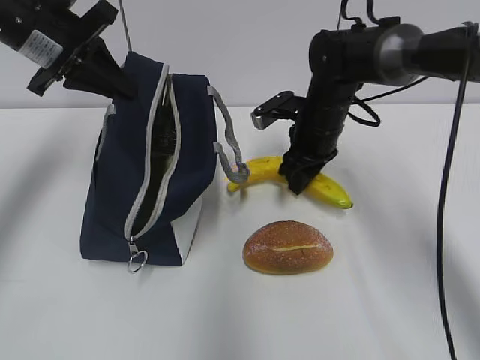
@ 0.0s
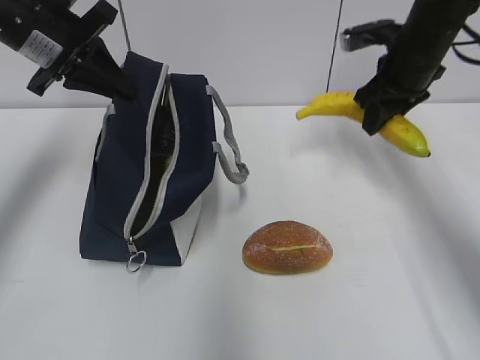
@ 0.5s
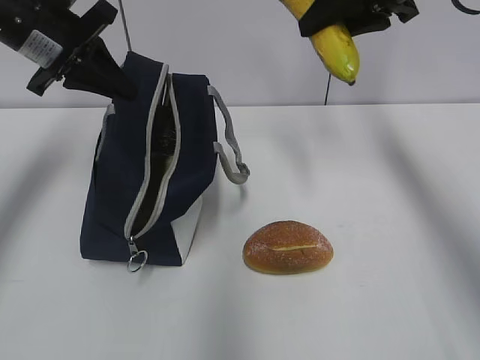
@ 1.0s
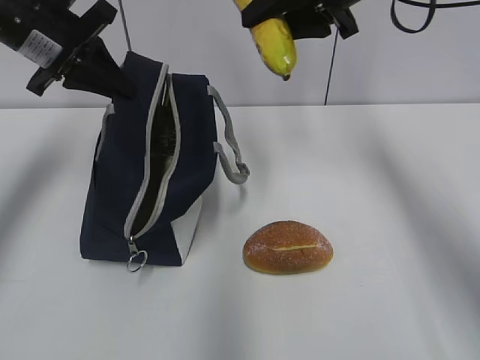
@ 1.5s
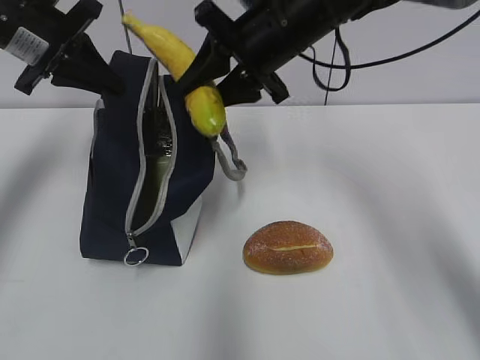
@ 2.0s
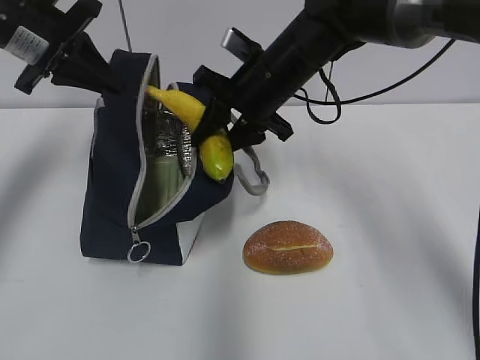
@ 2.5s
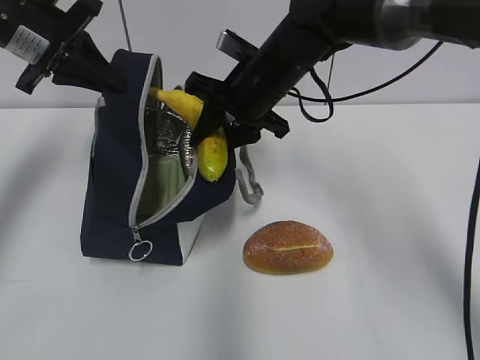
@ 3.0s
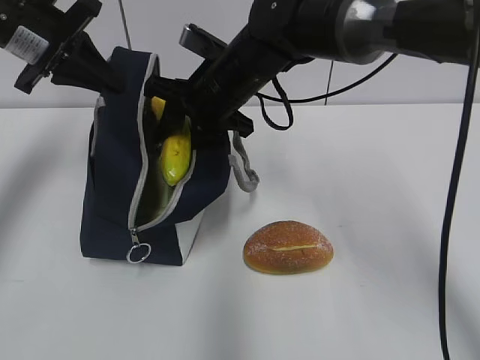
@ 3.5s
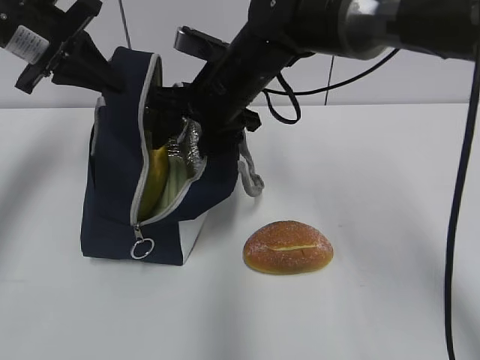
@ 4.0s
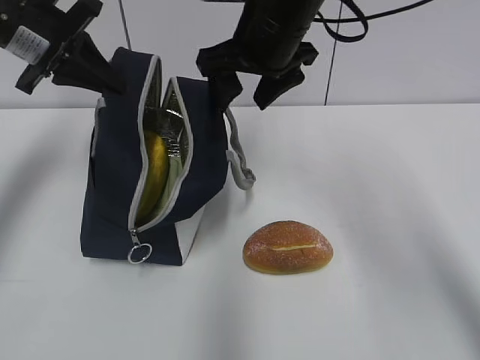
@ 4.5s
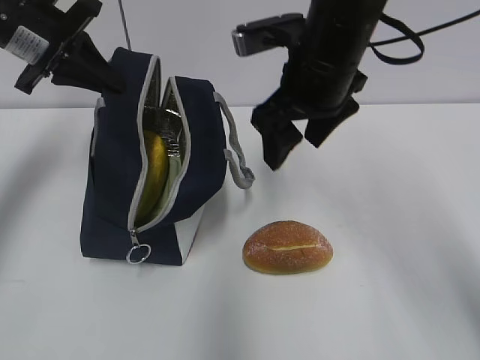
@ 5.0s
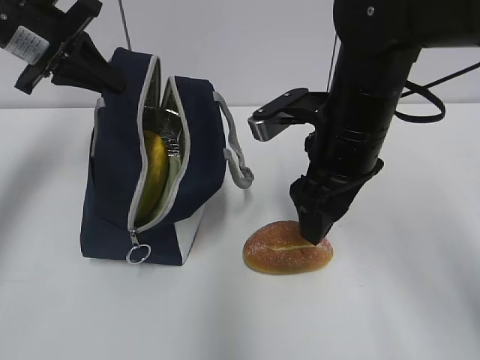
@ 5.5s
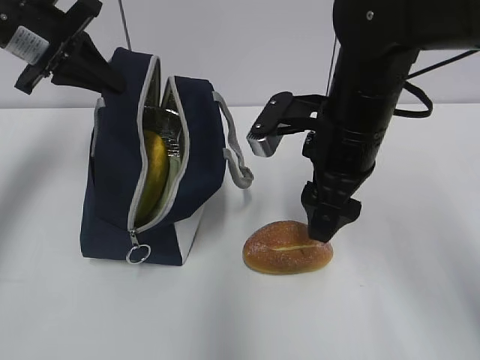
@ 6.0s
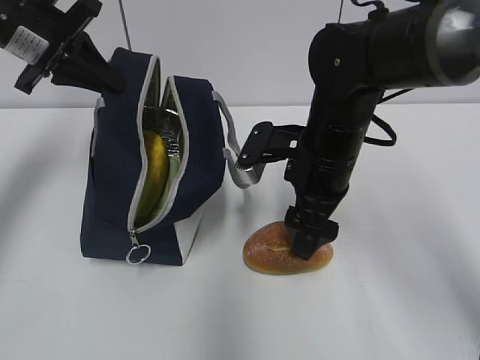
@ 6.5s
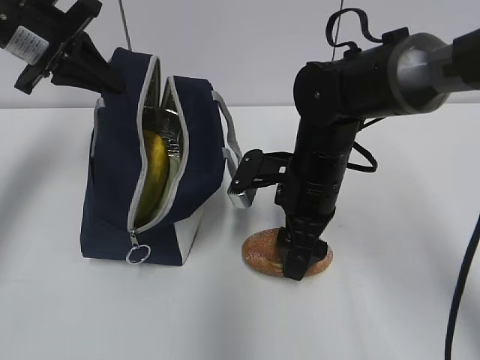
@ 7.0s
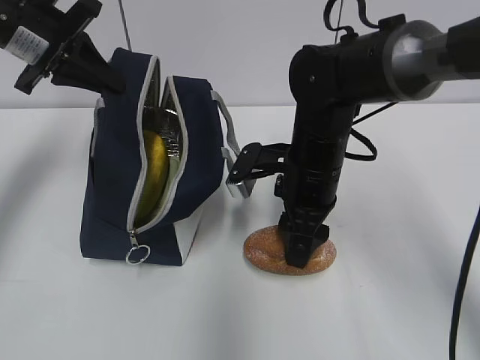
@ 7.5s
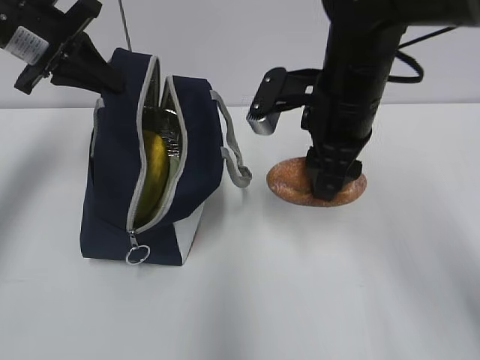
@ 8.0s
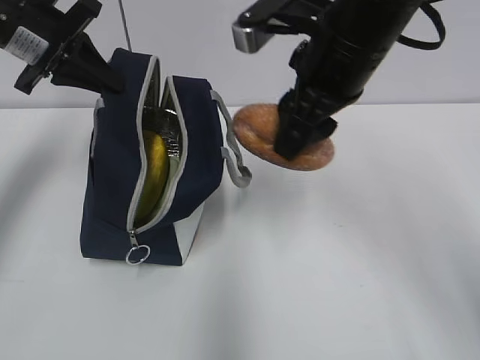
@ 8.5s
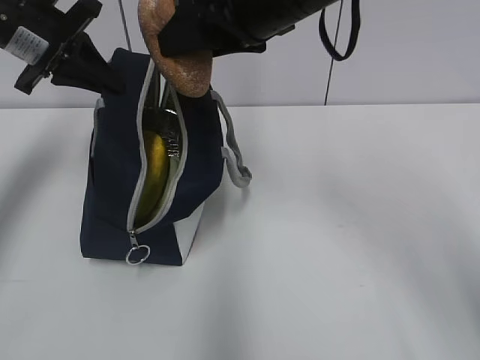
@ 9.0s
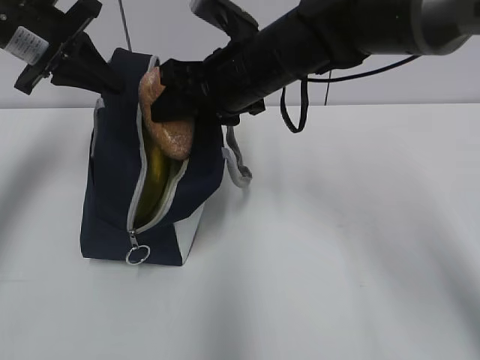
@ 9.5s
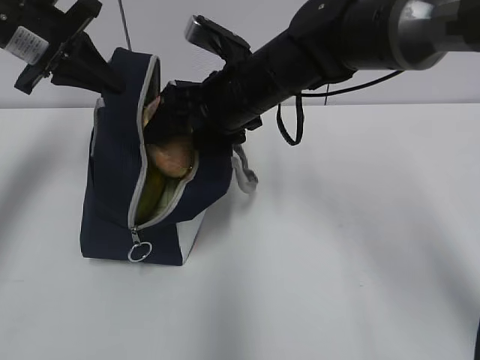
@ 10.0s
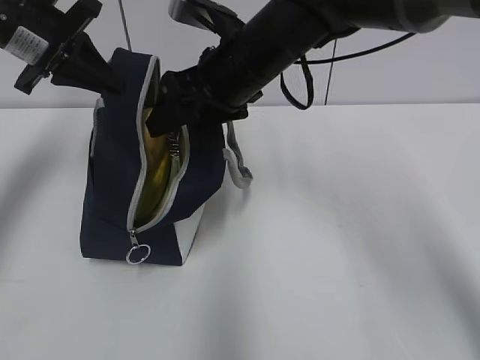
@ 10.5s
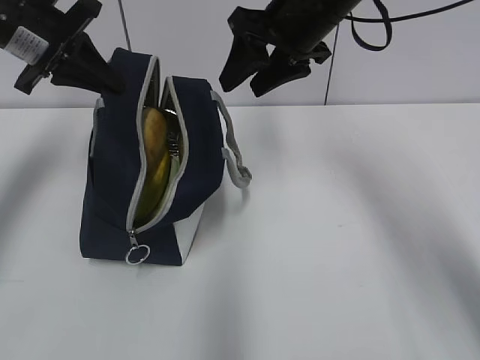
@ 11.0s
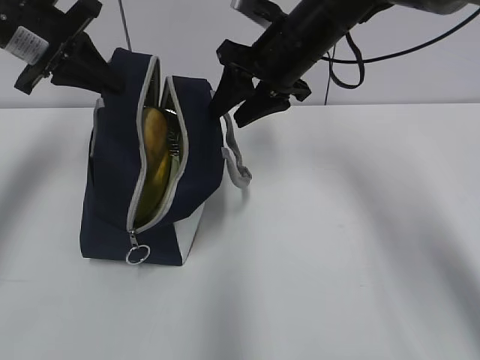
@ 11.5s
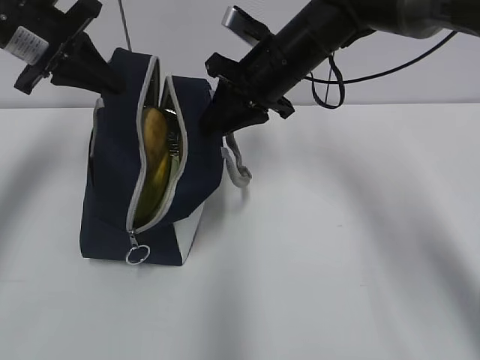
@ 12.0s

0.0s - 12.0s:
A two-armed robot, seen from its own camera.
Step, 0.0s - 3.5s: Place it into the bag with your right hand.
Step, 4.0s - 7.0s: Grab the bread with your right hand.
0.0s - 2.0s: The right gripper heads upward and to the left, covering about 15 cm.
2.0s - 4.0s: The right gripper goes approximately 10 cm downward and to the left, and opens up.
4.0s - 6.0s: The right gripper shifts roughly 15 cm to the right and backward.
6.0s - 8.0s: The right gripper moves roughly 10 cm downward and comes back.
8.0s - 10.0s: The right gripper goes approximately 10 cm to the left, moves roughly 10 cm upward and comes back, and opens its fingers.
10.0s - 12.0s: The right gripper moves roughly 10 cm upward and comes back, and closes its fingers.

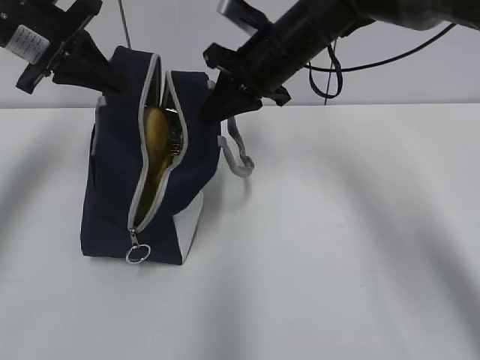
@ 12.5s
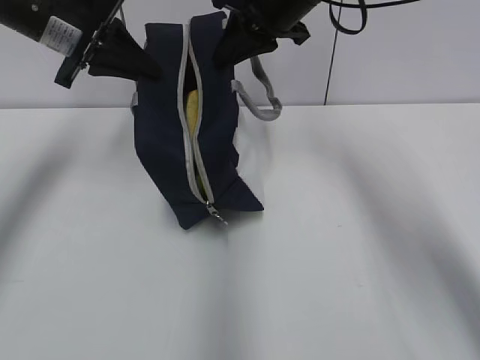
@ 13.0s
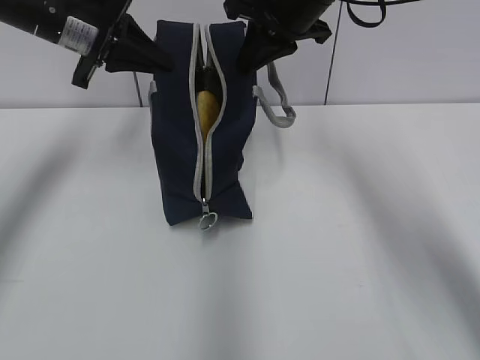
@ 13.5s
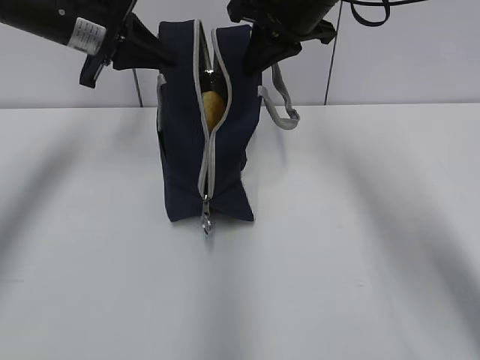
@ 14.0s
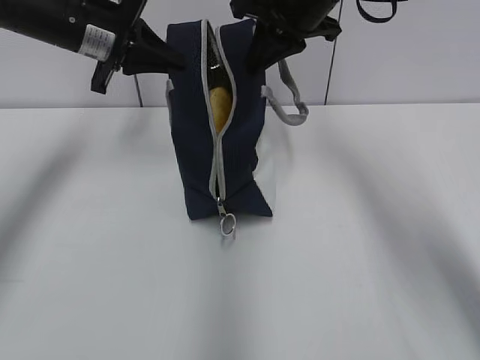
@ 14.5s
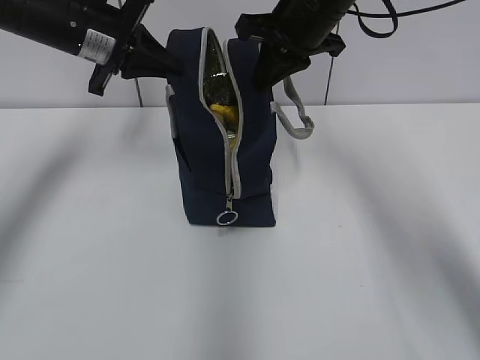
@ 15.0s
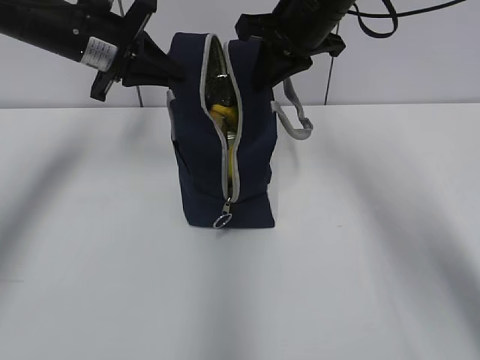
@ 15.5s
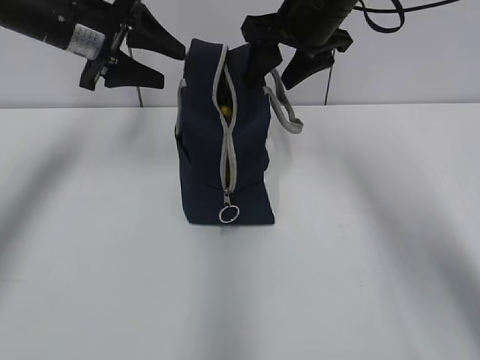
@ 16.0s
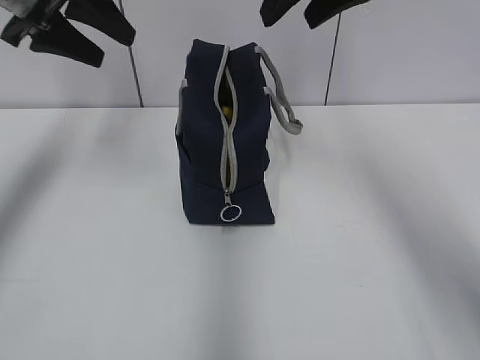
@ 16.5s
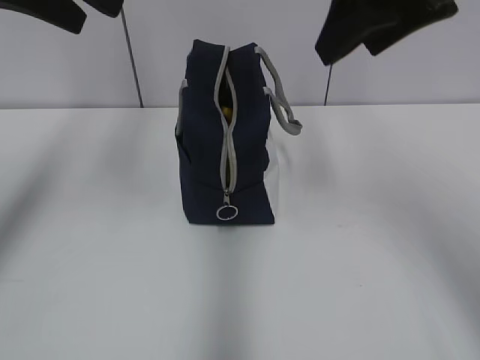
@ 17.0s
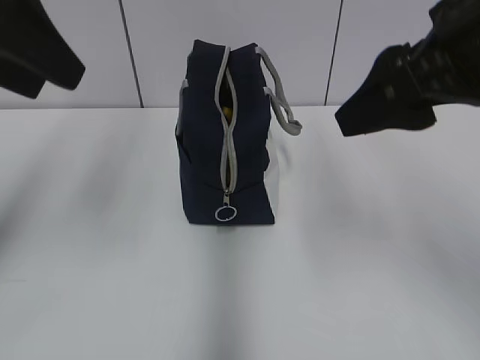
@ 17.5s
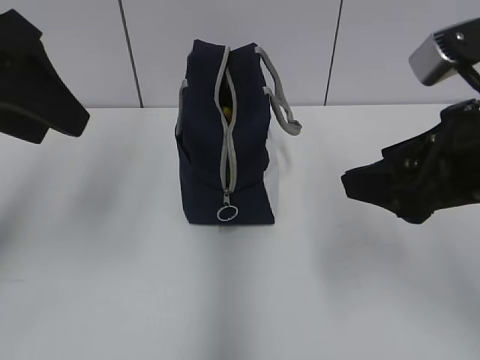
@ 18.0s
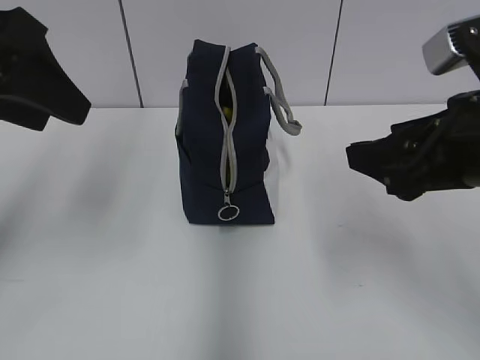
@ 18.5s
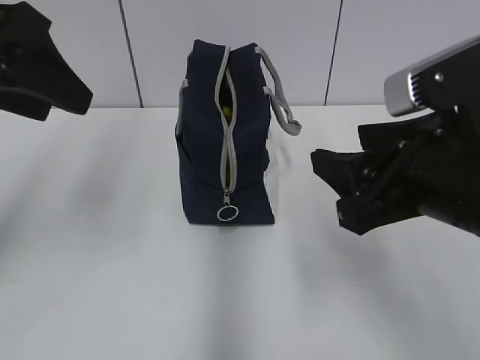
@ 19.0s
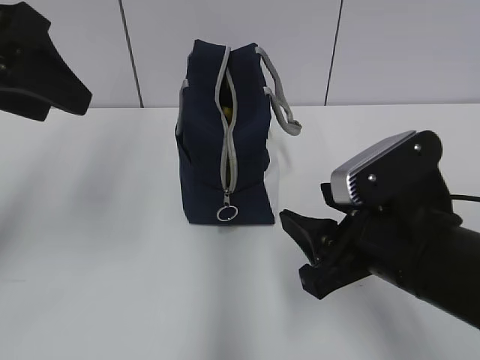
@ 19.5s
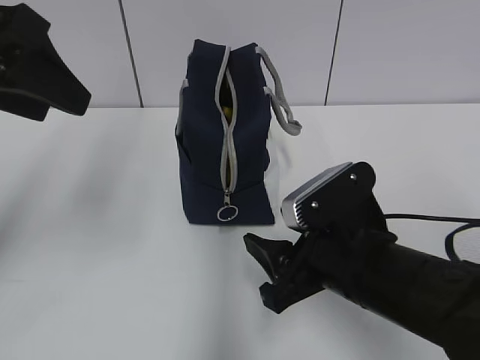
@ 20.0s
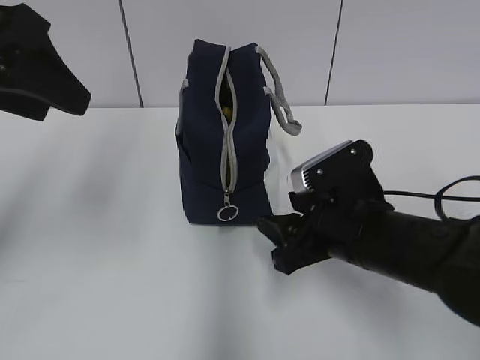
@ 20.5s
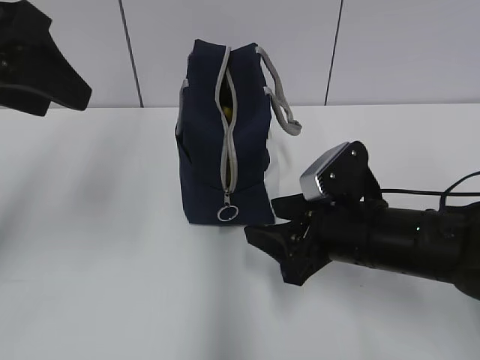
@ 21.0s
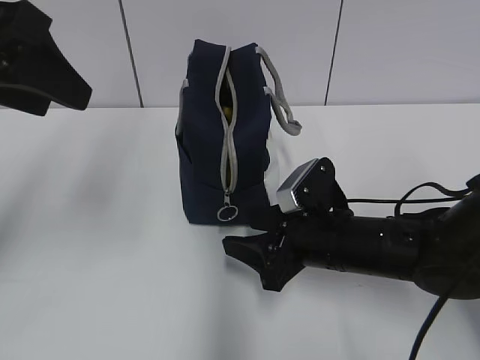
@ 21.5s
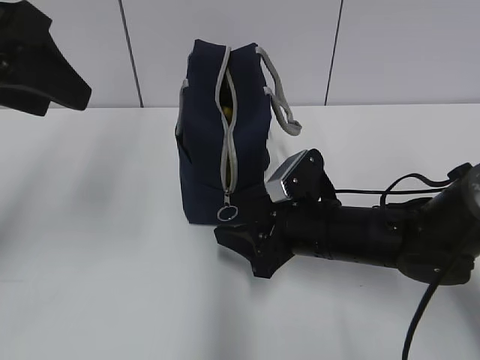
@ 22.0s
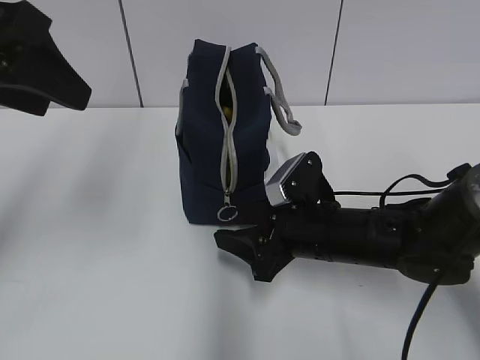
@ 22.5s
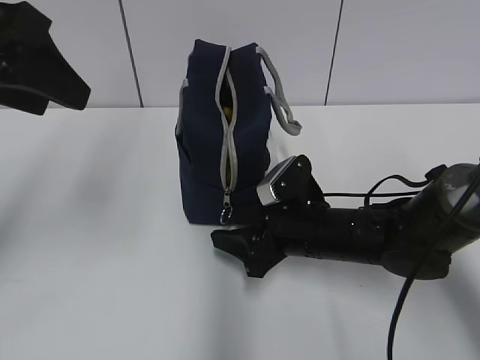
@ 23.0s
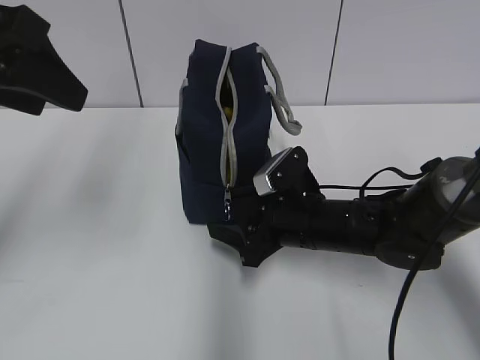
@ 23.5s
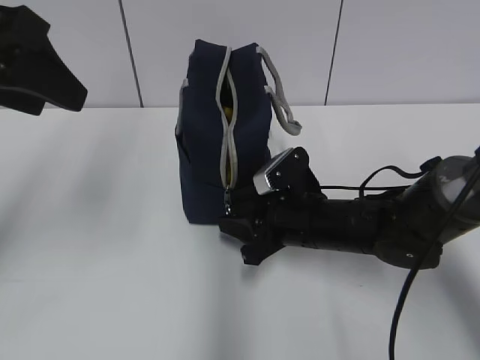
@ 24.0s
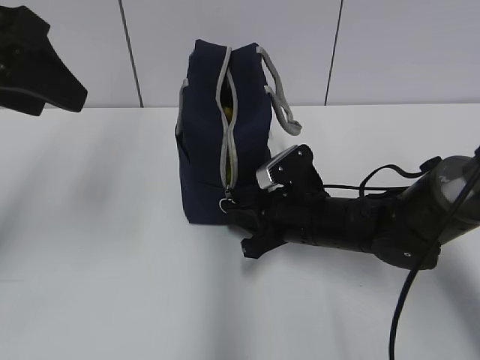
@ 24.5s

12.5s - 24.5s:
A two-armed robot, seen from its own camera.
Step, 12.5s - 15.5s: Move the lunch bag to the right.
12.5s - 14.5s: The right gripper goes about 5 cm upward, while the left gripper travels to the right by approximately 5 cm.
14.5s - 16.5s: Both grippers move upward, approximately 5 cm. The left gripper opens. Meanwhile the right gripper opens its fingers.
16.5s - 18.5s: The left gripper travels backward by about 15 cm; the right gripper is displaced backward and downward by some 20 cm.
18.5s - 20.5s: The right gripper travels downward and to the left by some 15 cm.
20.5s - 22.5s: The right gripper ends up about 5 cm from where it was.
22.5s - 24.5s: The right gripper closes up.

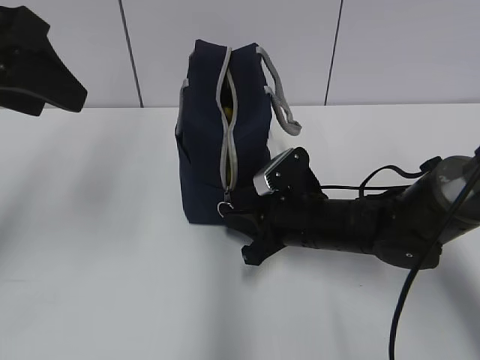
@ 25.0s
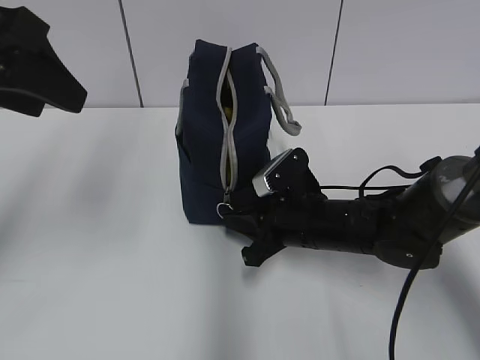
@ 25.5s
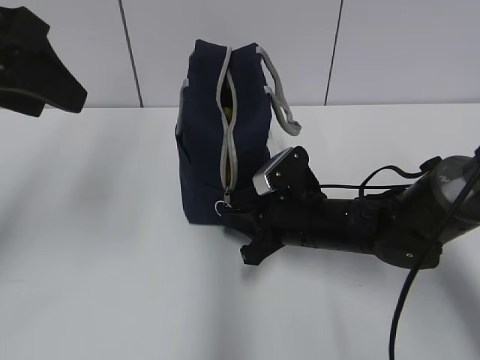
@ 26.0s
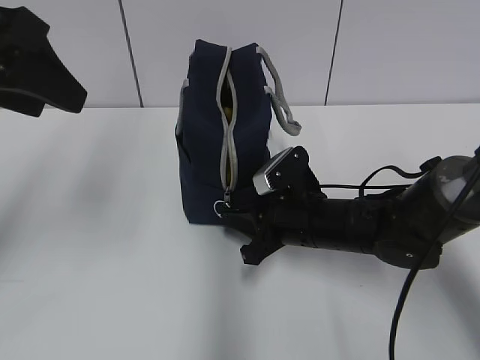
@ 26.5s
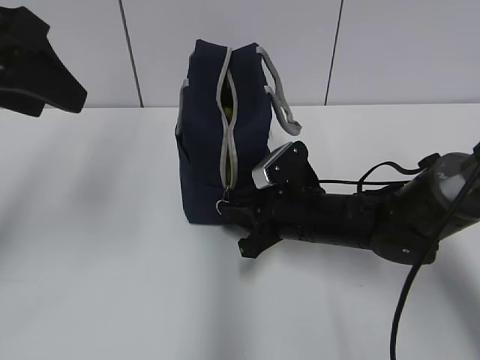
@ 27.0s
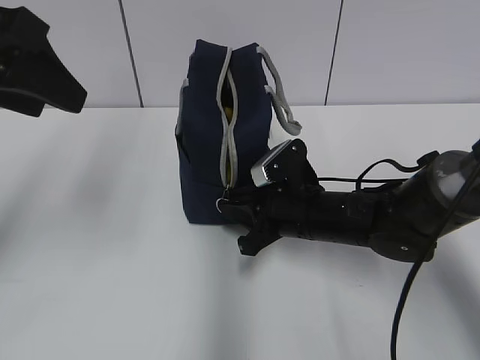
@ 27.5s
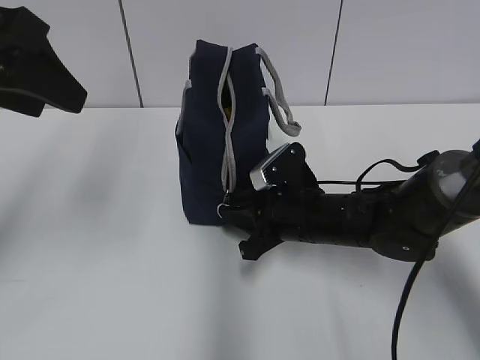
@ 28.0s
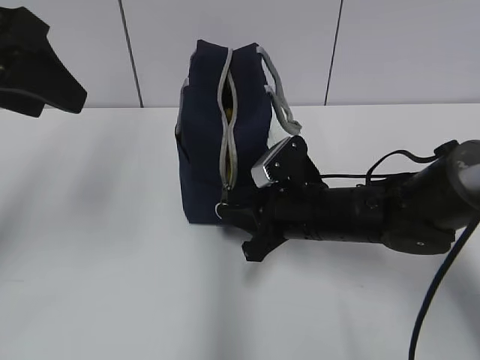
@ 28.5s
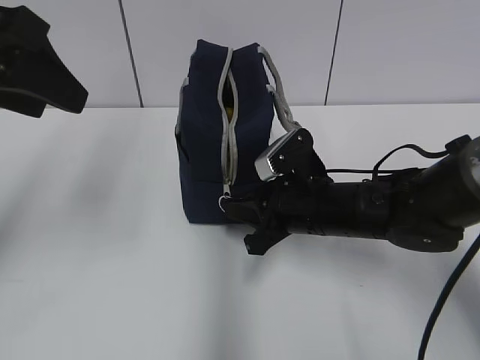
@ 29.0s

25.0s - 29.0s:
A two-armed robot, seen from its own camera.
25.0s - 27.0s: Neither gripper changes place.
27.0s - 29.0s: The grippers move only a little.
